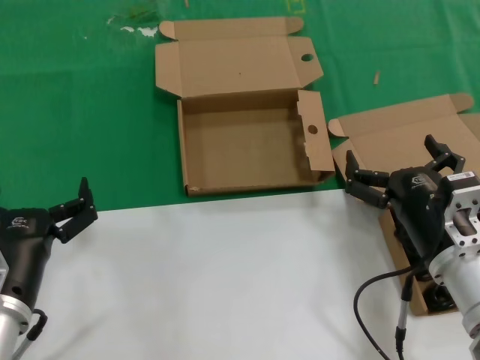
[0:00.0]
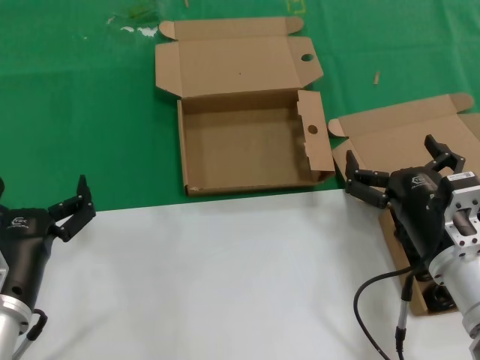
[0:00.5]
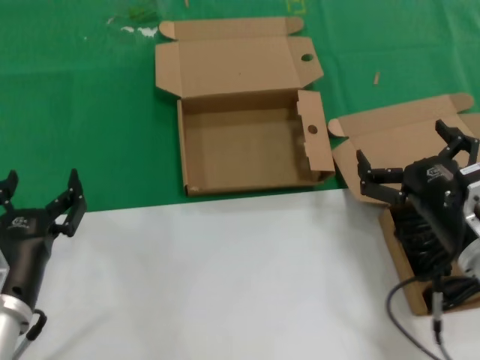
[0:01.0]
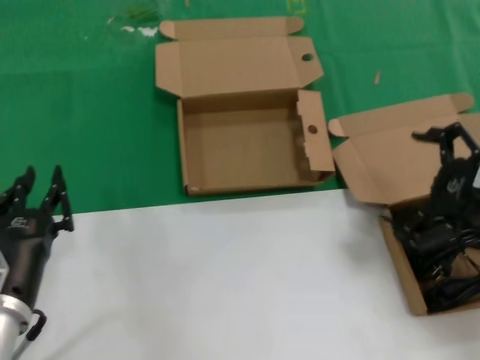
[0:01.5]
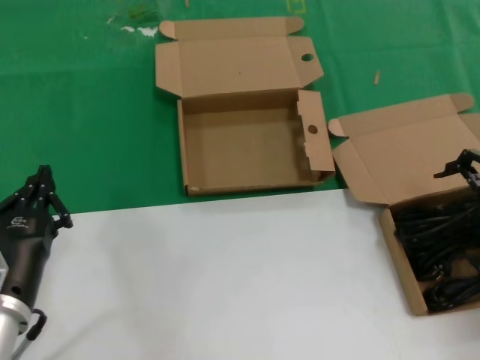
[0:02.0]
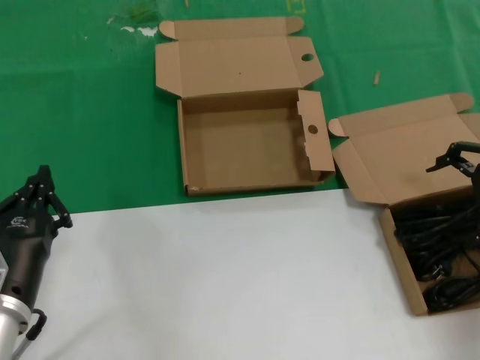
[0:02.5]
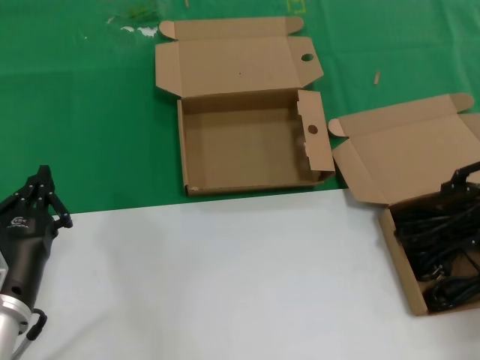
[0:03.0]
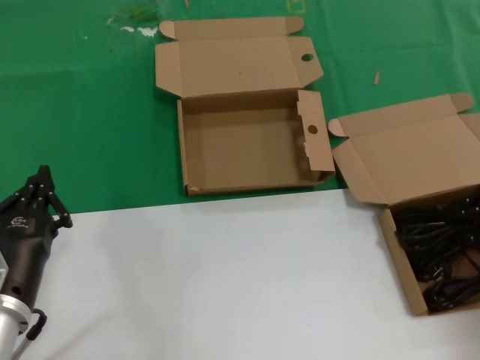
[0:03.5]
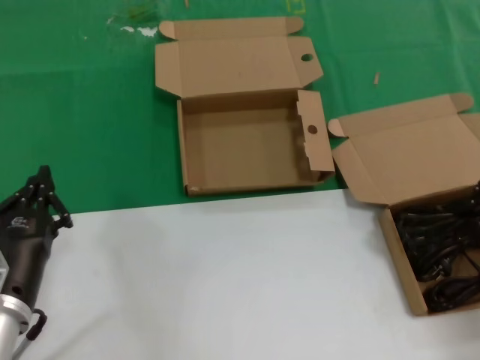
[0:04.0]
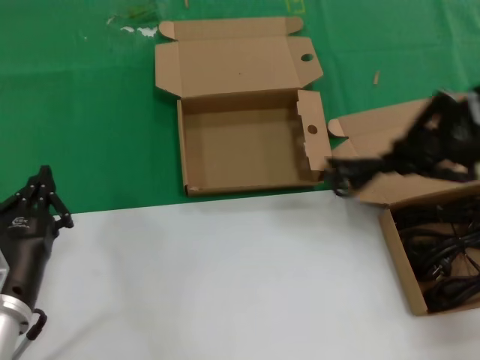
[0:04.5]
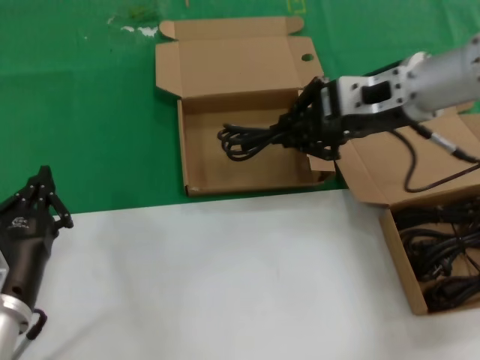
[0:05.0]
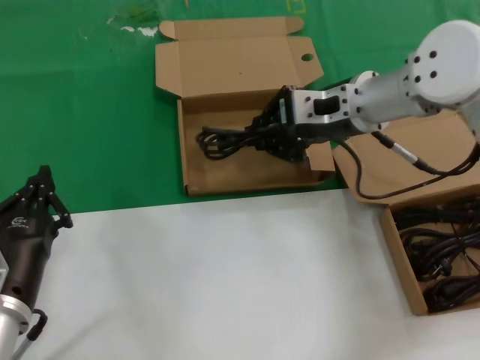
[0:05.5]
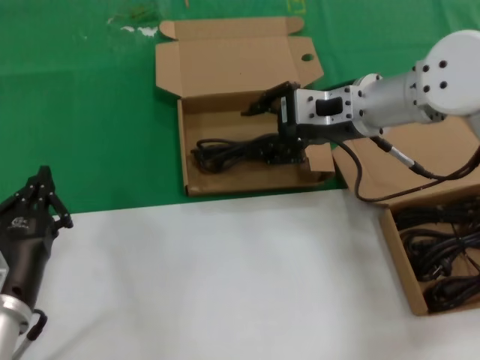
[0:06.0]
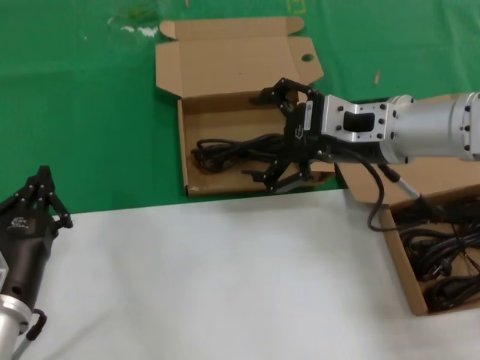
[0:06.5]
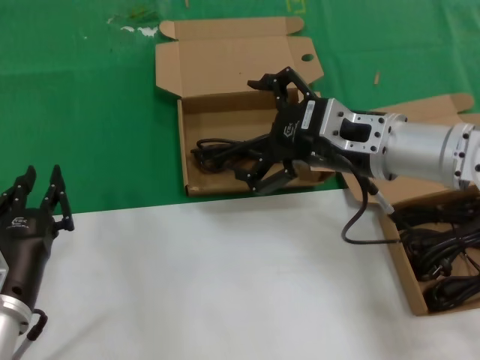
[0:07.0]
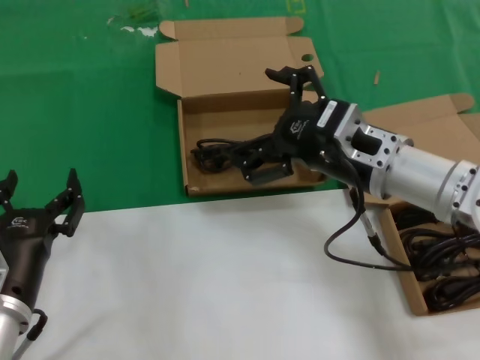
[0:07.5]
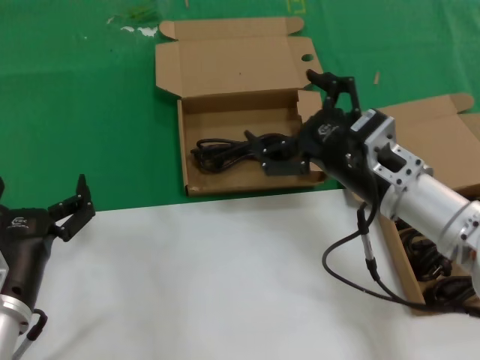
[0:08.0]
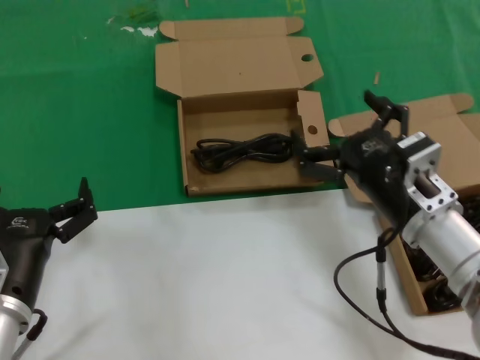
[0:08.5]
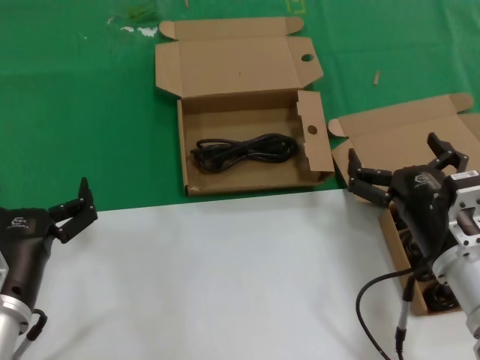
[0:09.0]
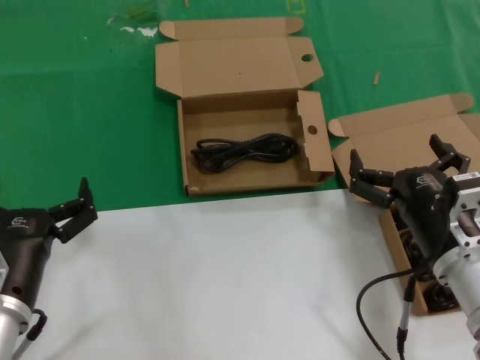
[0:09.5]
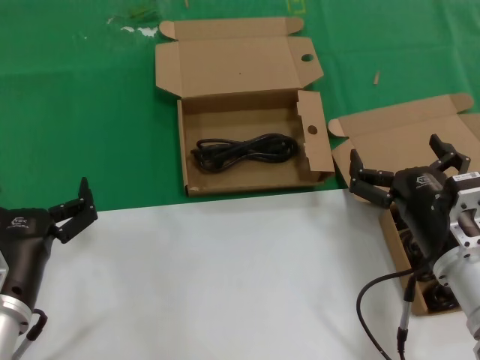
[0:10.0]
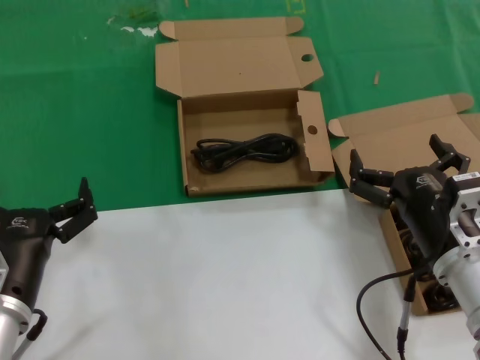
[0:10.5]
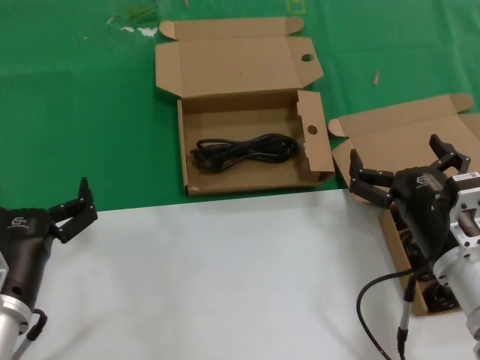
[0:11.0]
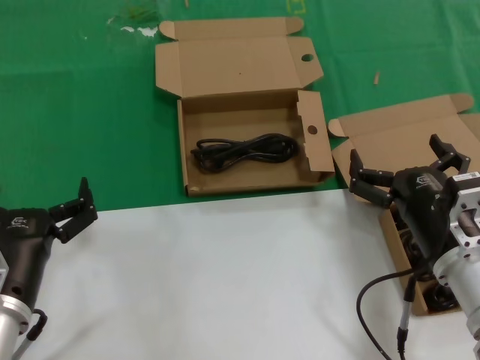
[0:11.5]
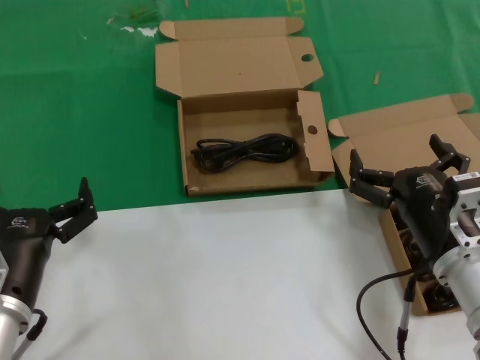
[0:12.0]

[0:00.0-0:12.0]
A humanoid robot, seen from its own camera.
Task of the whole recording: take the parts from the box containing them and put them into an empty box.
Step, 0:00.0 to 0:03.5: Grasp the data cable.
Step, 0:04.0 to 0:07.0: Place the data cable in the another box.
0:00.0 to 0:02.0: The right hand goes about 25 cm to the right and upward.
0:04.0 to 0:06.0: The right hand goes some 25 cm to the left and forward.
0:06.0 to 0:08.0: The right hand goes about 15 cm backward and downward.
0:08.0 to 0:10.0: The right hand goes about 10 cm downward and backward.
0:10.0 to 0:12.0: Both hands stay about where they are.

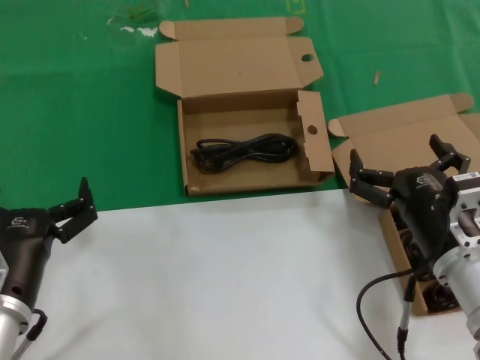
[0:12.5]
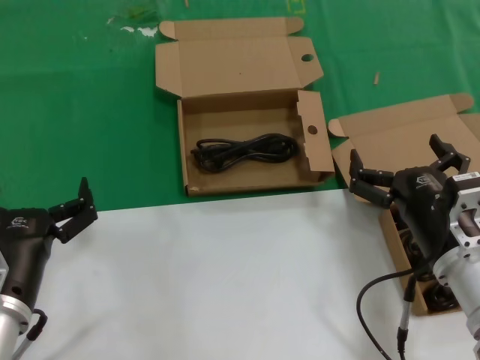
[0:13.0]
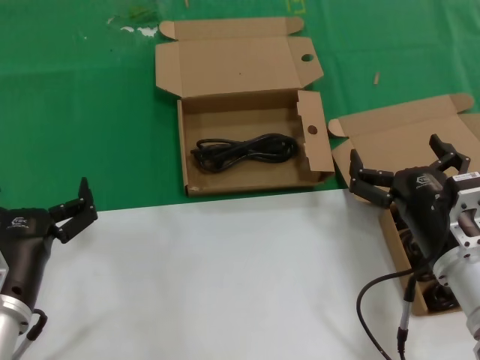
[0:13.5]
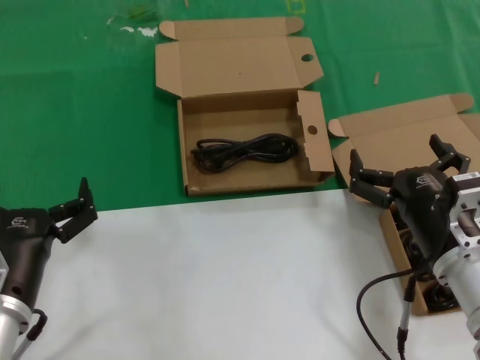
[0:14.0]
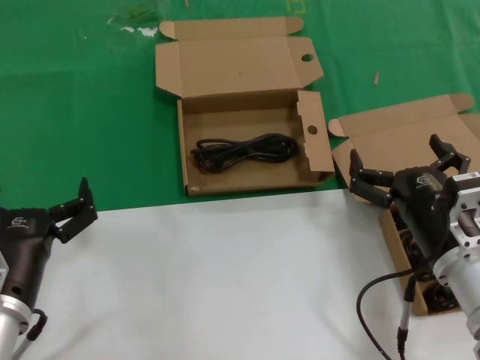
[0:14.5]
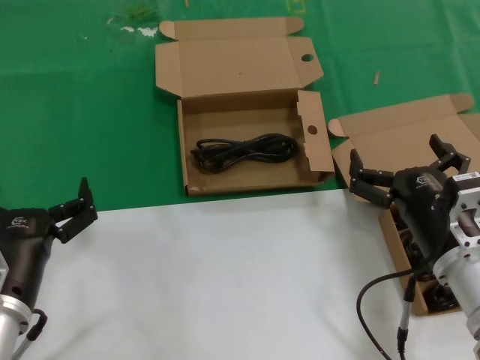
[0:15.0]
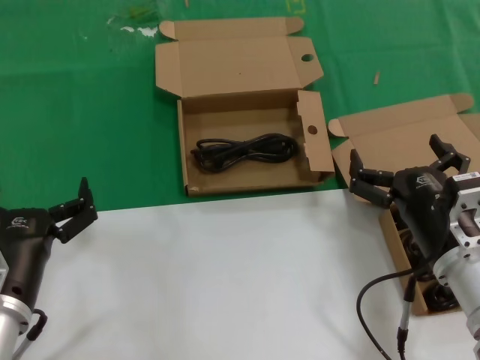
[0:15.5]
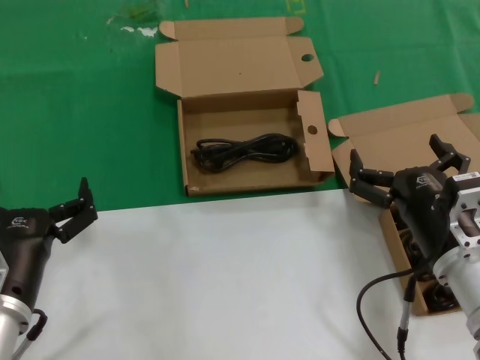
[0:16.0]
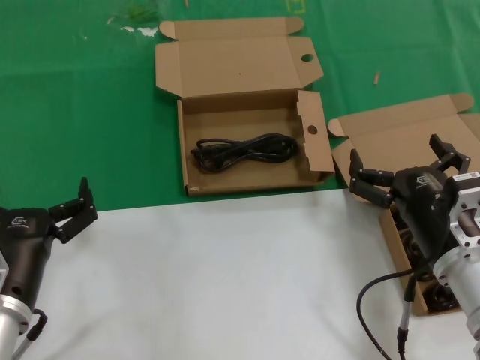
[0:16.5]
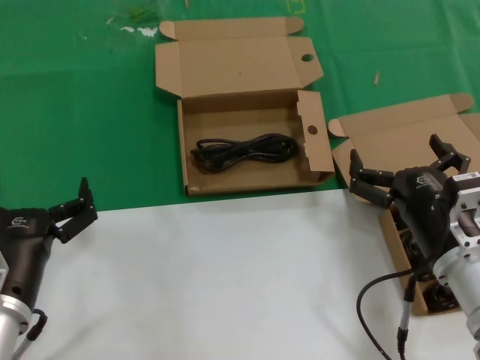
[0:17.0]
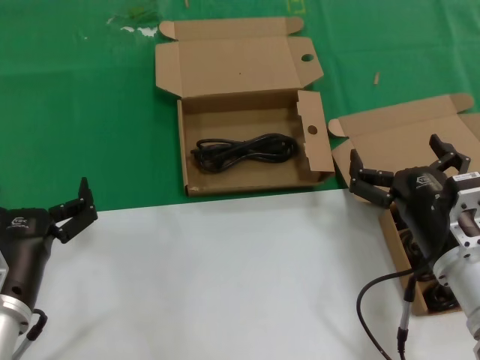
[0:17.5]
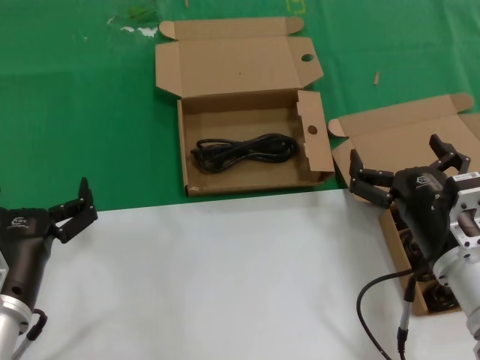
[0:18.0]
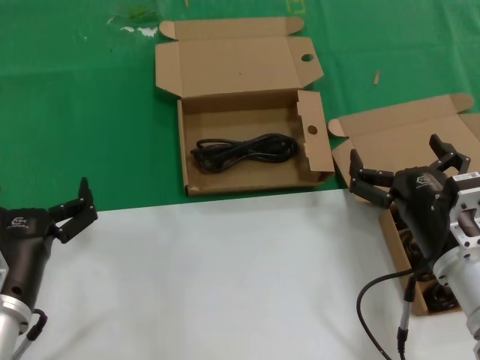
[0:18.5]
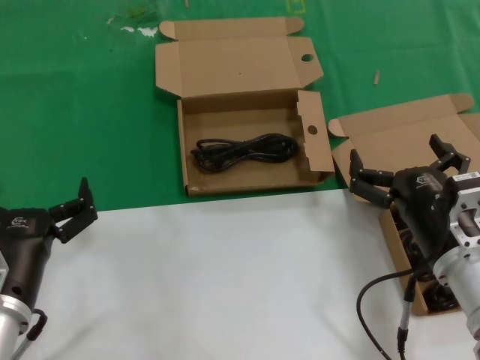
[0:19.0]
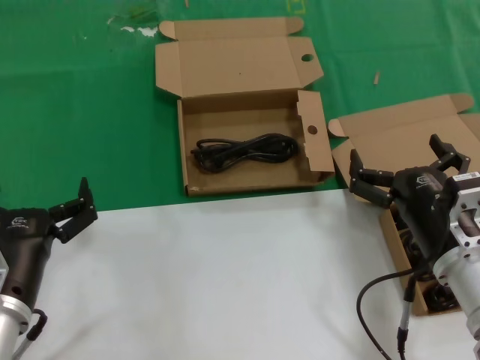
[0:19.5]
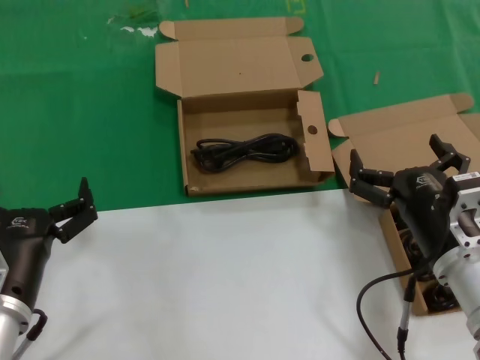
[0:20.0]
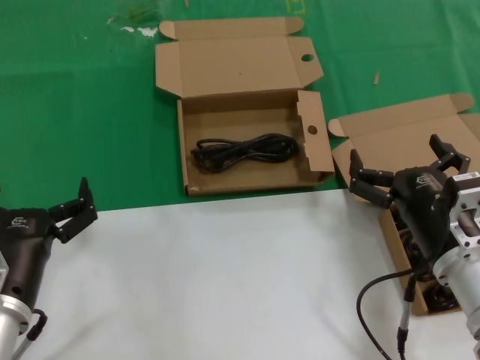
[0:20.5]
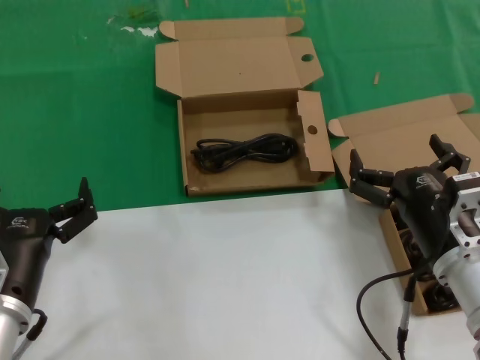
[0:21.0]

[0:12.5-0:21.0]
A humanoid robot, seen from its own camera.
Task of the whole recording: take the parts from the box containing them and put them into an empty box.
0:12.5 to 0:21.0: The two hands keep their place.

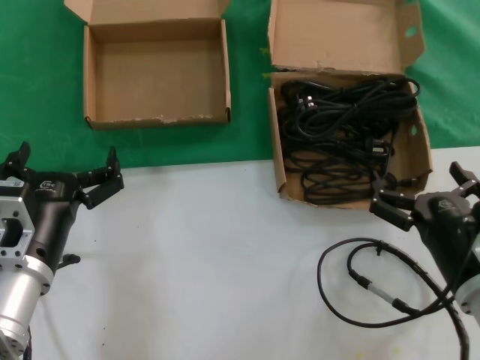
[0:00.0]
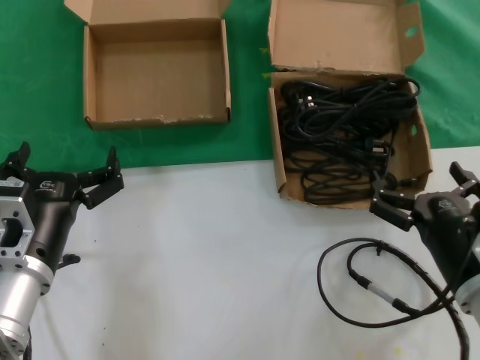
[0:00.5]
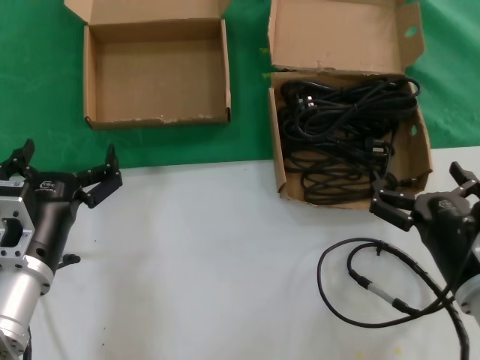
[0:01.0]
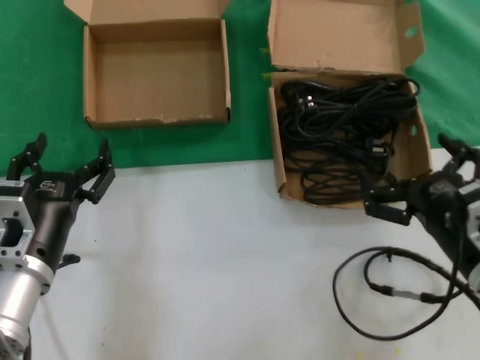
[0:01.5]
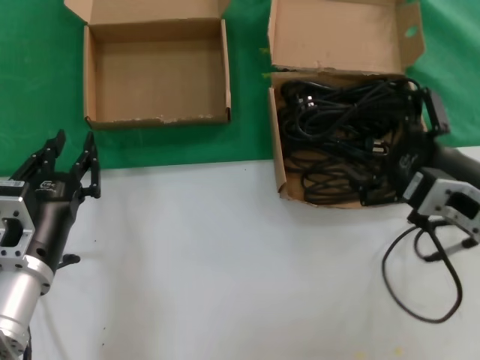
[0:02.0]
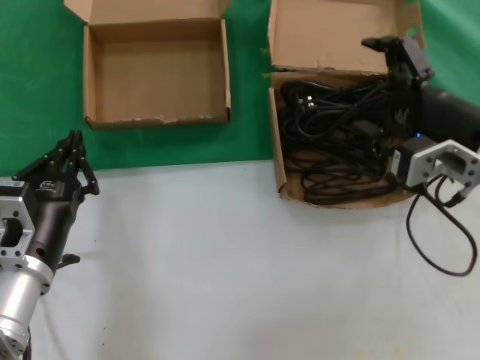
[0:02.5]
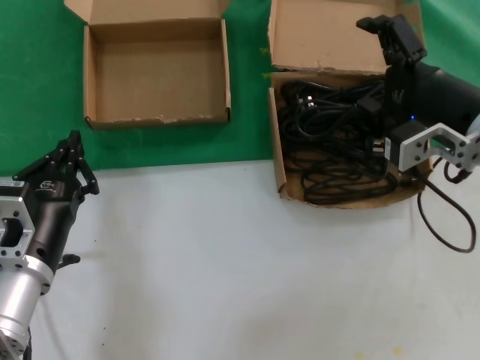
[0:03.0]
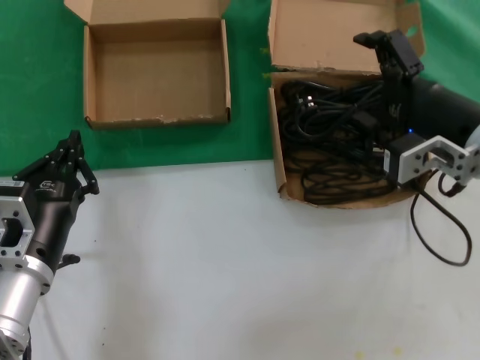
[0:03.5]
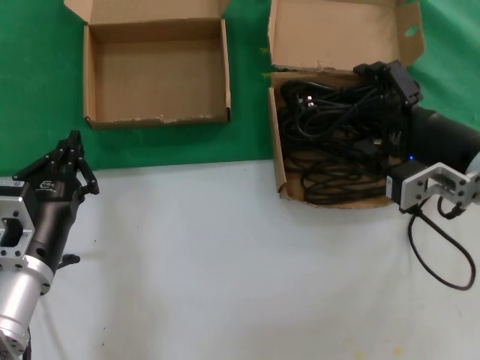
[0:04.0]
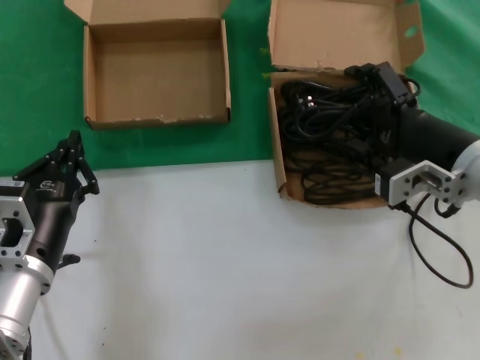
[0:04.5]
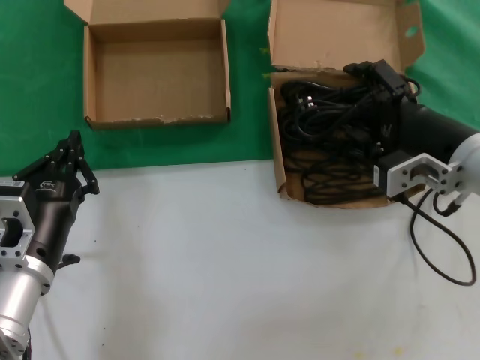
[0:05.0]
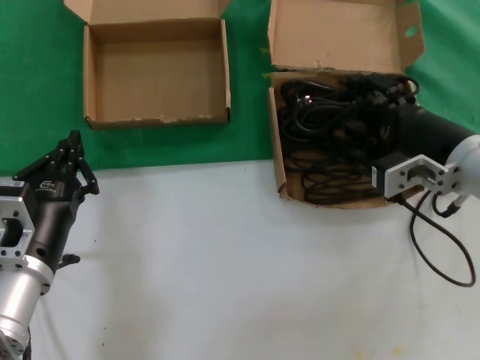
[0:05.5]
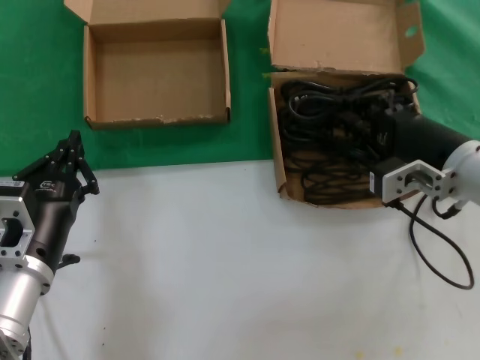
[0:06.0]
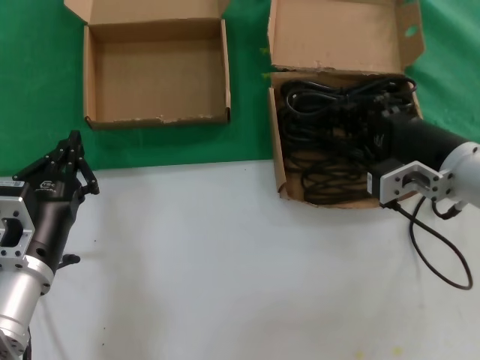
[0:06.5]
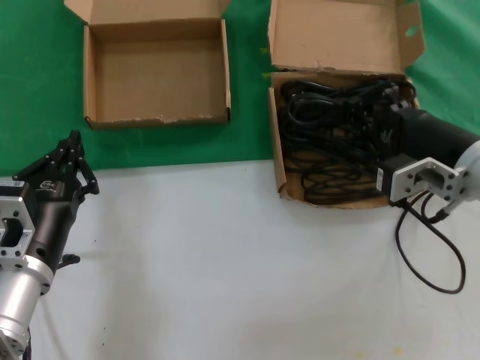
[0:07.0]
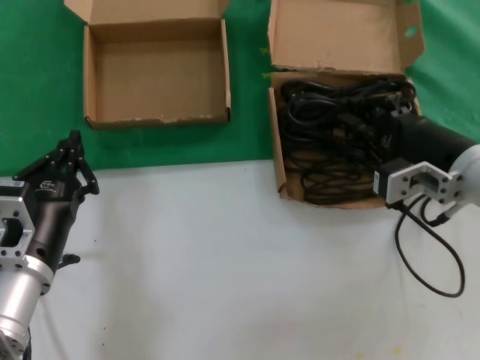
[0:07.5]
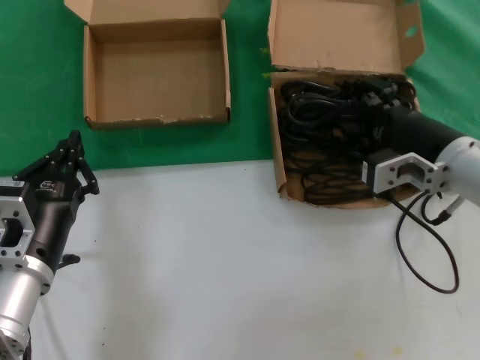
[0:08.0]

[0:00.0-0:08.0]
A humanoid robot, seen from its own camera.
Task of the whole recording: take the parts from the box containing them and put them into an empty box.
0:00.0 to 0:02.0: The right hand is displaced upward by some 10 cm.
0:02.0 to 0:04.0: The right hand heads forward, covering some 5 cm.
0:04.0 to 0:08.0: The hands move only a little.
